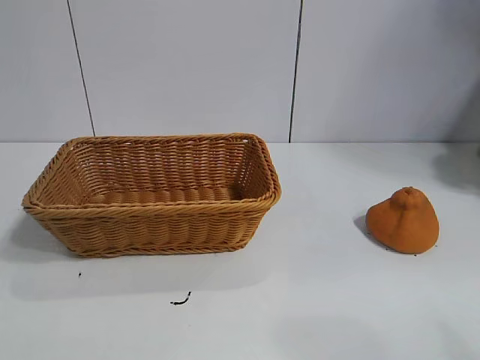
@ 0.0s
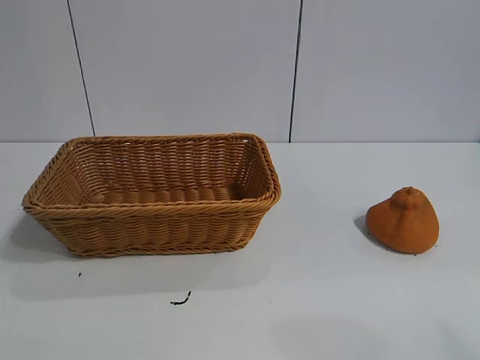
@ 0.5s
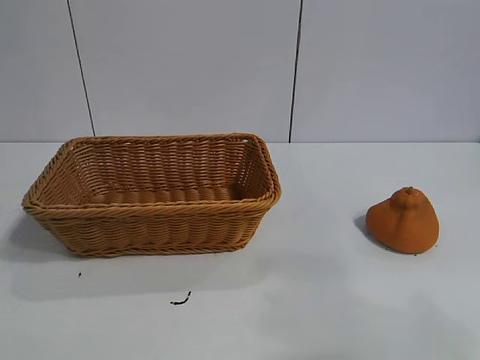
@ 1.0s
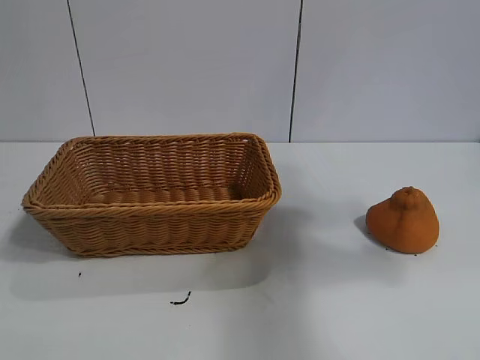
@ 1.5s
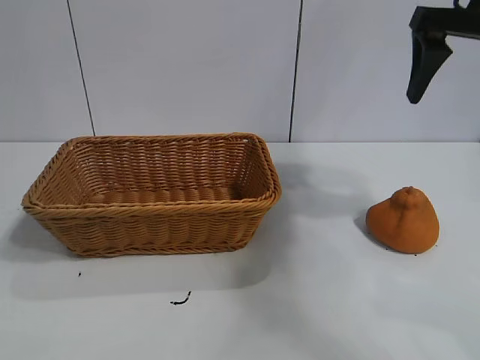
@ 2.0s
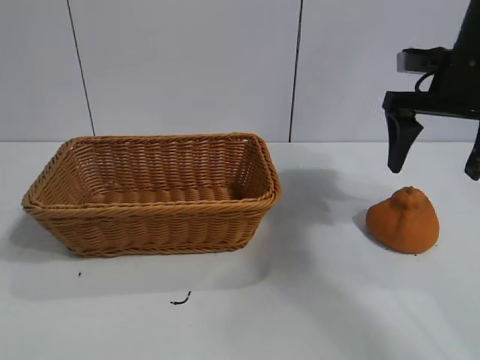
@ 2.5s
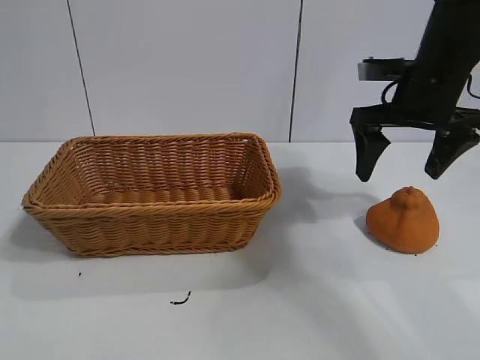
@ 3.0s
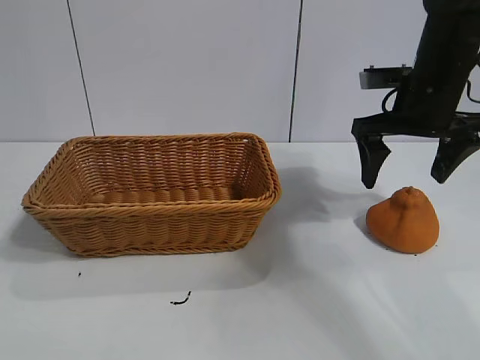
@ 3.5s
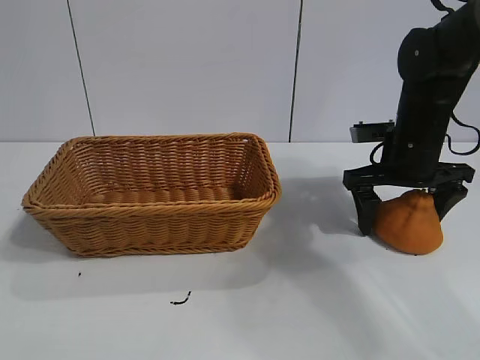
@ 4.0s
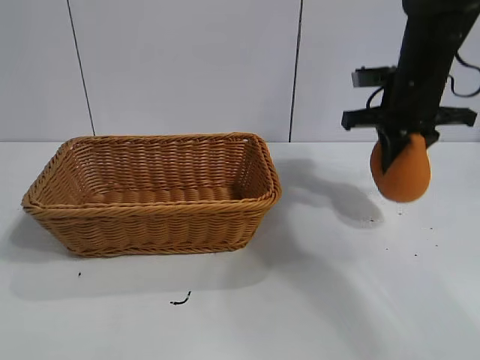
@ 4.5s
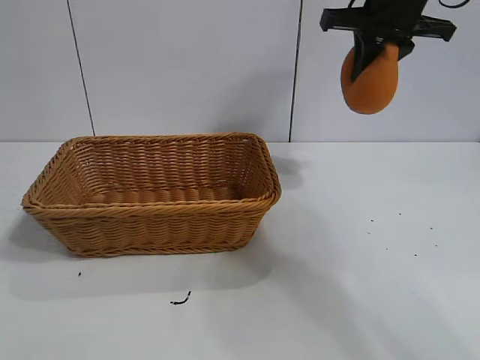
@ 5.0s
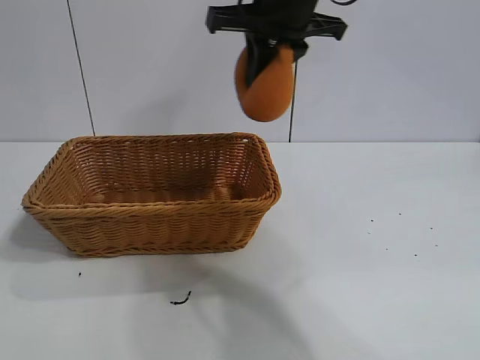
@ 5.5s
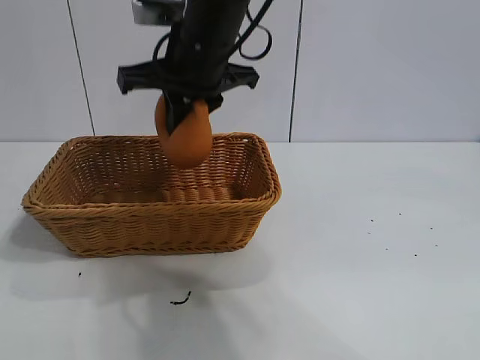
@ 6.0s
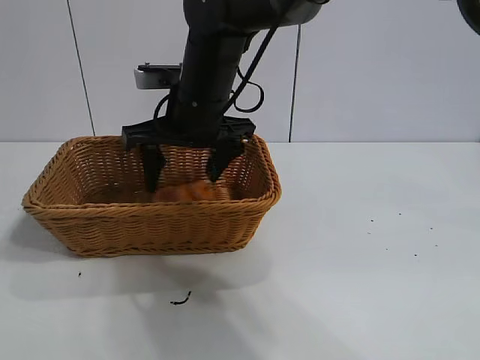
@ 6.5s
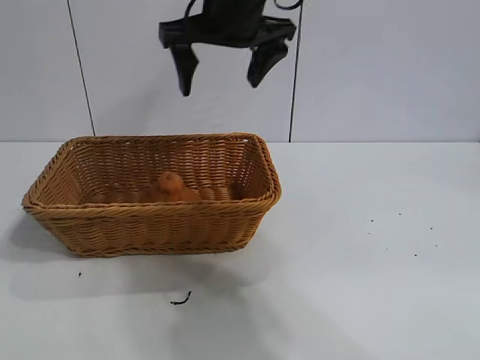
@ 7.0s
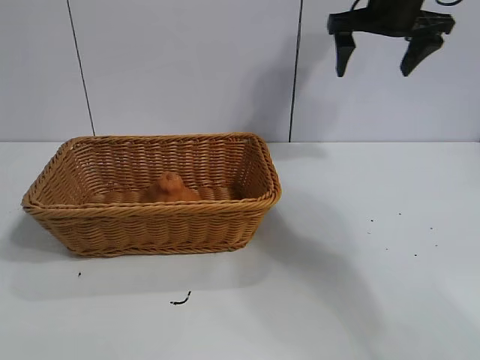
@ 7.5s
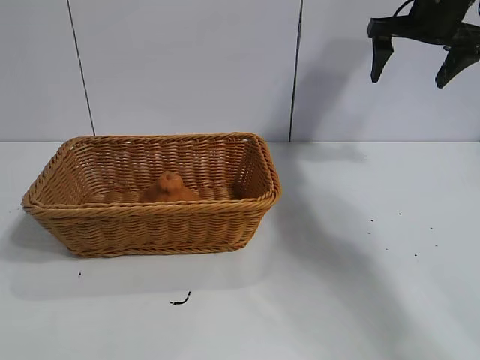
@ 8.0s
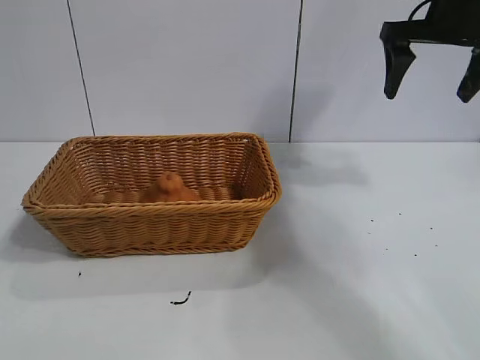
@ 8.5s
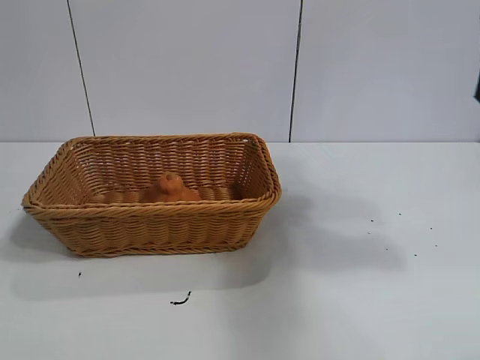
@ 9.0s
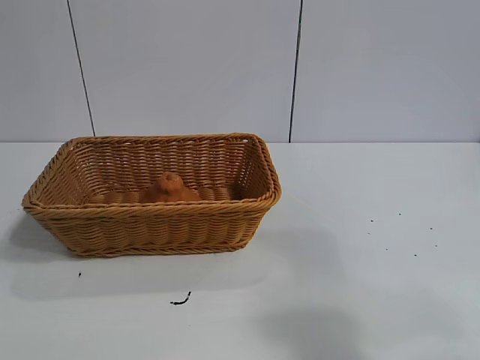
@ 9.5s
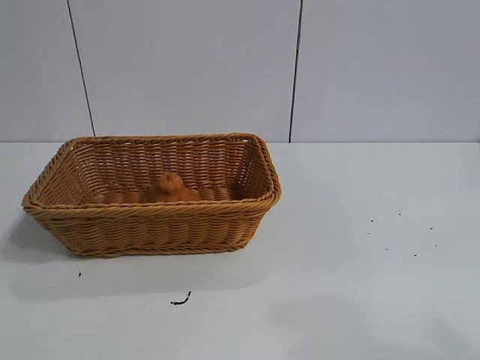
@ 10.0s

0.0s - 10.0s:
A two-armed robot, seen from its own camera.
Task of the whole recording: pick up the orange and put it into the basket.
Step, 1.0s - 4.0s: Grasp the orange with right gripper.
Step, 4.5s - 6.5s: Place the orange in the basket with right gripper.

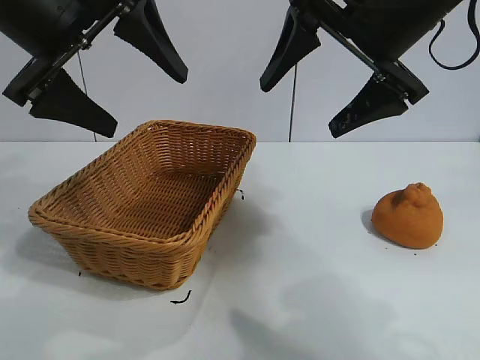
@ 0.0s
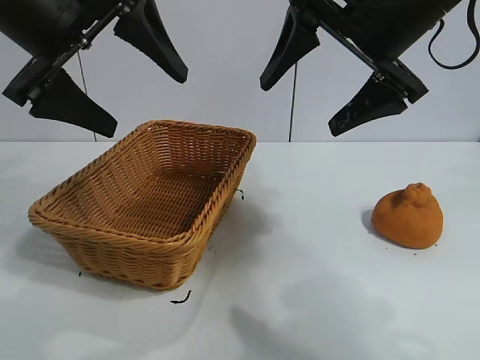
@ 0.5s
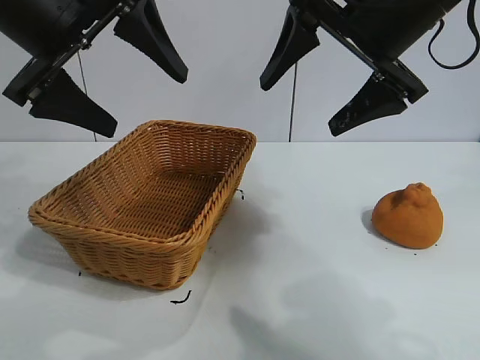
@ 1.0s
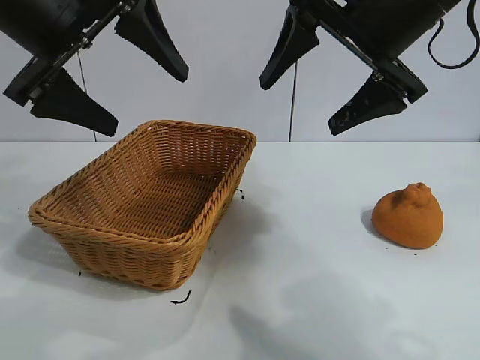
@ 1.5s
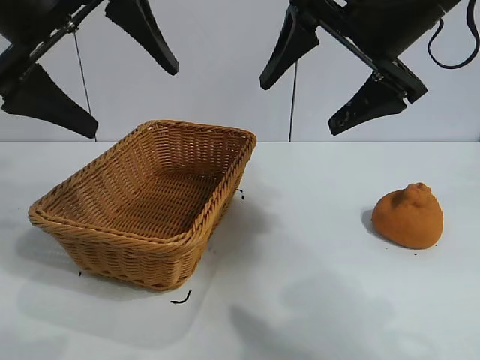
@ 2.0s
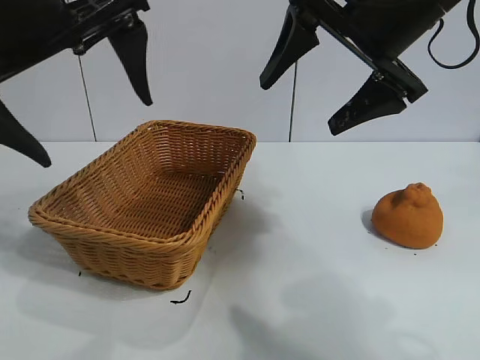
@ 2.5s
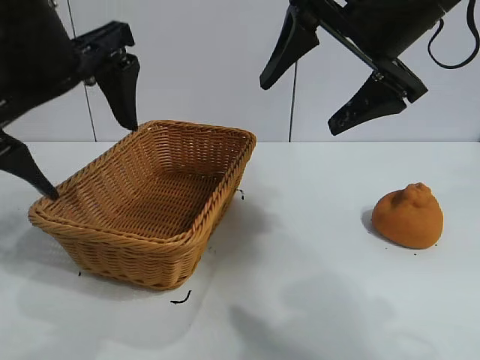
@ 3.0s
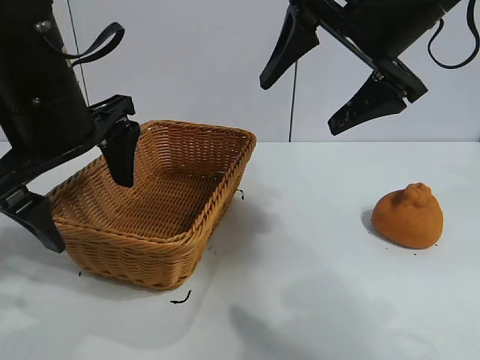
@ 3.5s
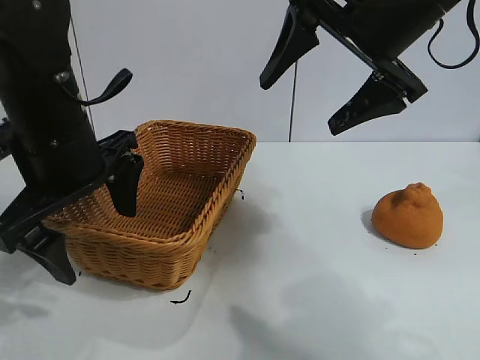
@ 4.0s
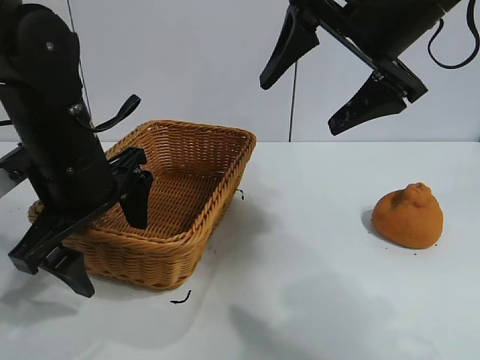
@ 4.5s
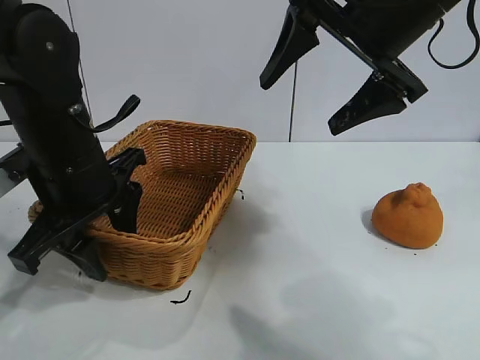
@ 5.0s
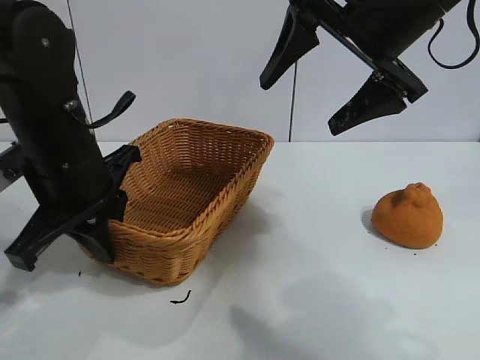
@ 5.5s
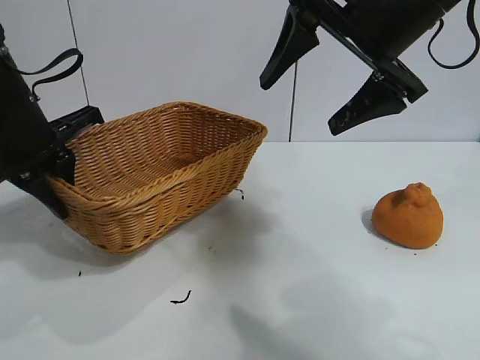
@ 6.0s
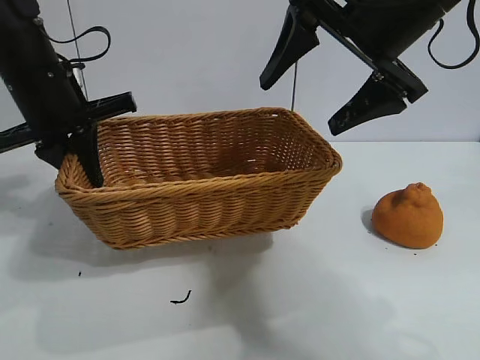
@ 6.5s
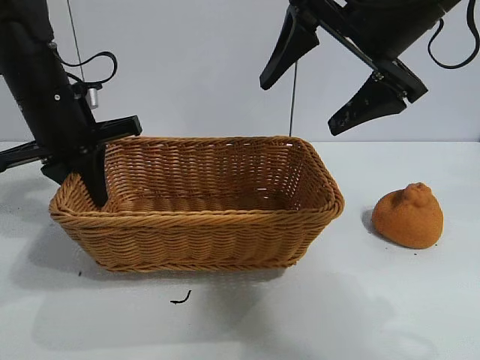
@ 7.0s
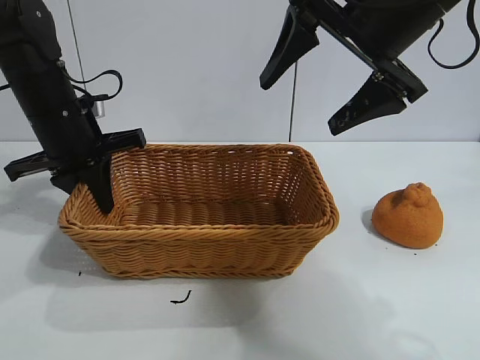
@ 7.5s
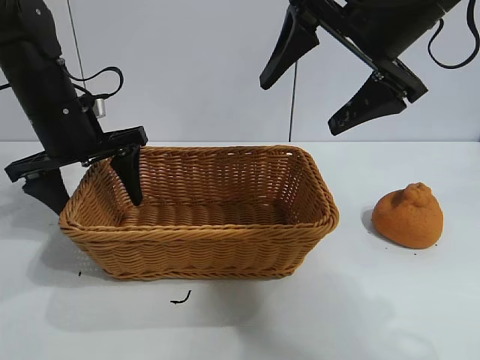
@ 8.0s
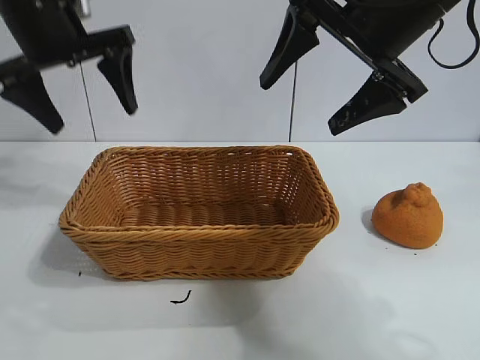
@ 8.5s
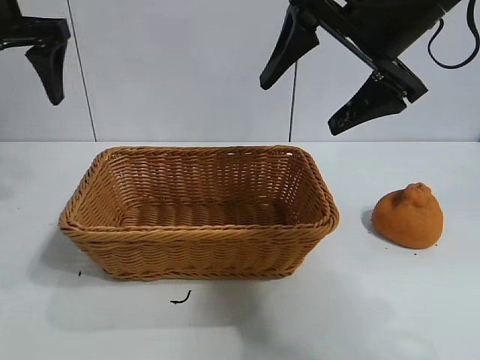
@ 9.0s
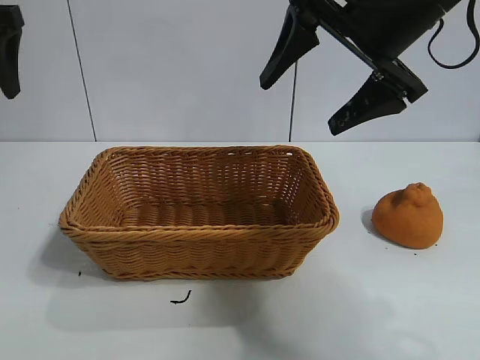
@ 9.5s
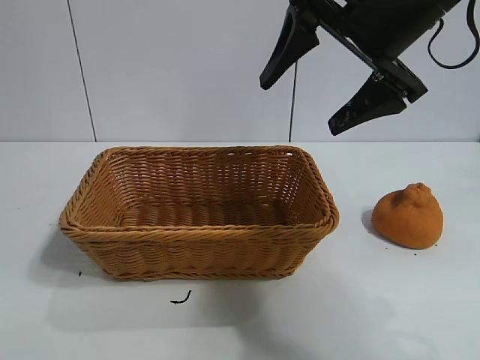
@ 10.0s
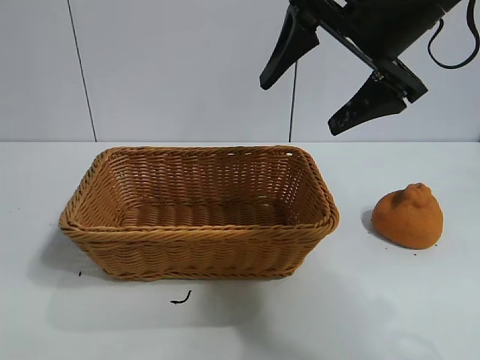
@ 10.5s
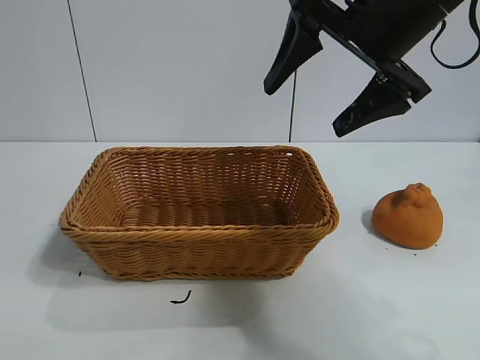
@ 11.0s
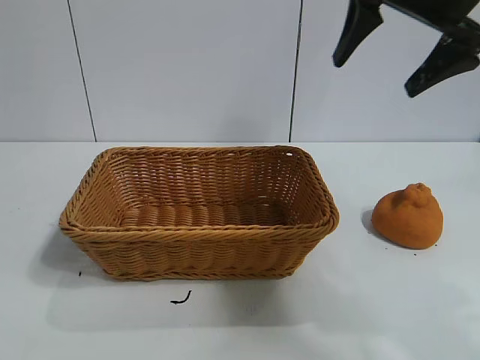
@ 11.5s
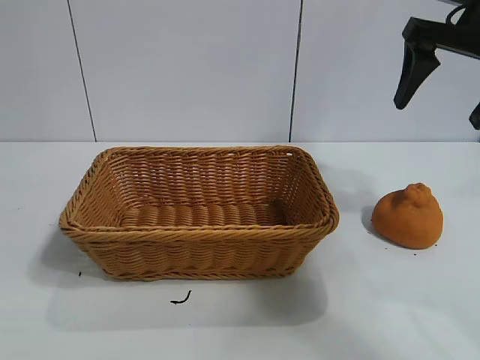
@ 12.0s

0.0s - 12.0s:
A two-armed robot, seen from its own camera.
Task of the whole recording: pick up the orange and put it into the basket.
Step, 1.5s - 5.0s: Grasp the basket with left gripper.
Step, 5.5s - 8.0s: Place the basket in the center of view with left gripper.

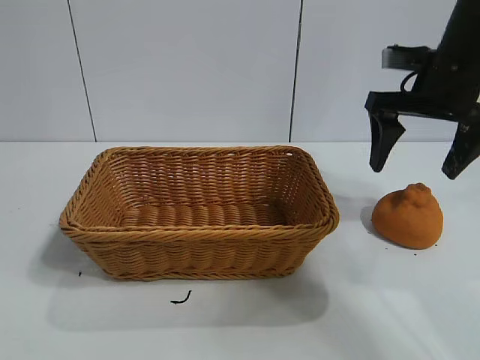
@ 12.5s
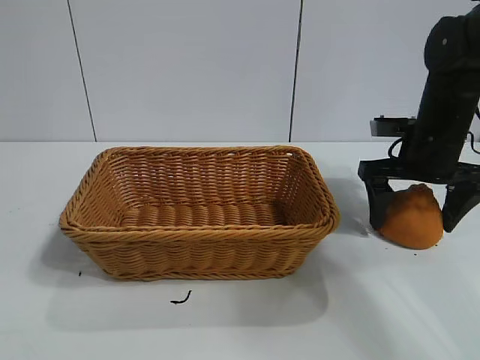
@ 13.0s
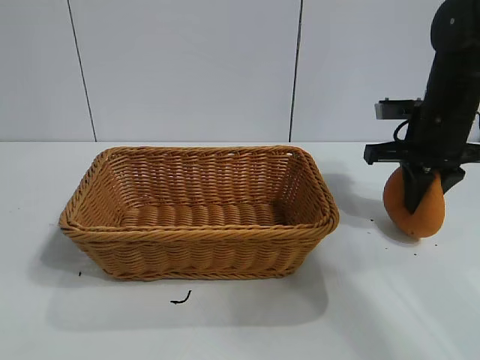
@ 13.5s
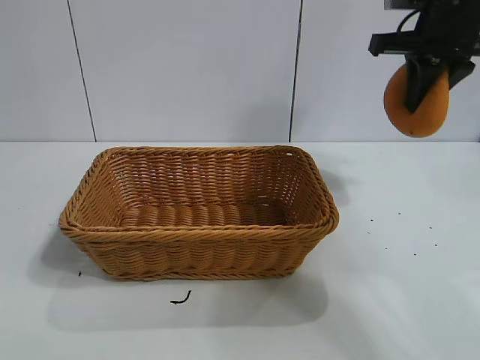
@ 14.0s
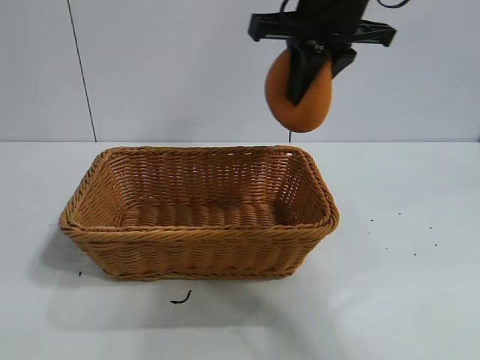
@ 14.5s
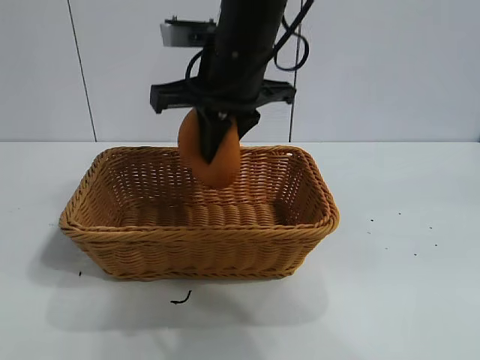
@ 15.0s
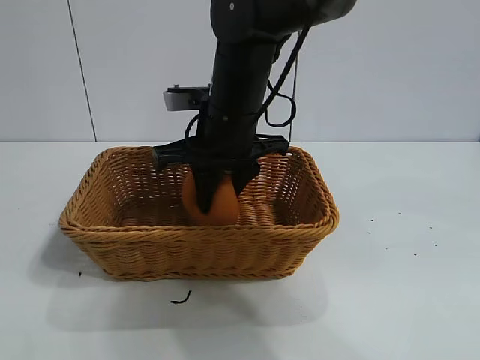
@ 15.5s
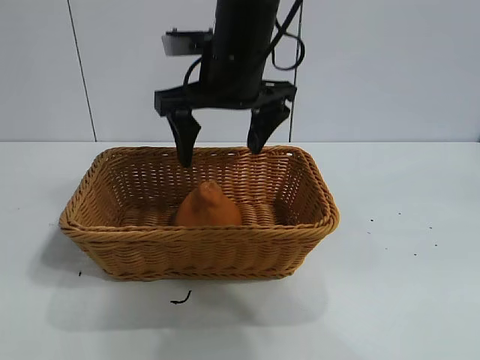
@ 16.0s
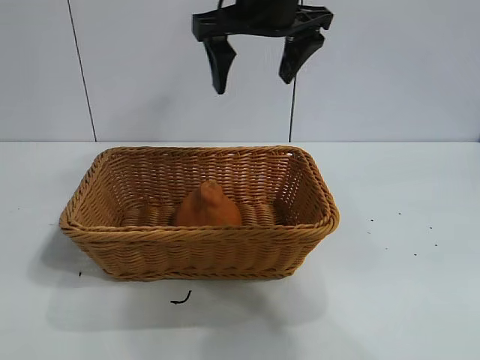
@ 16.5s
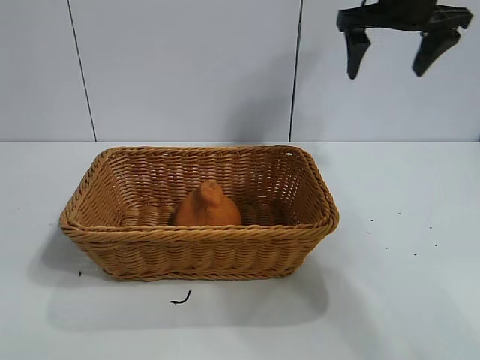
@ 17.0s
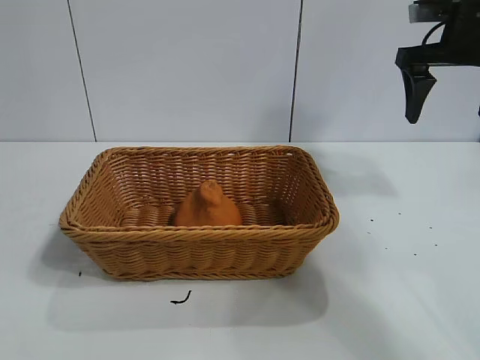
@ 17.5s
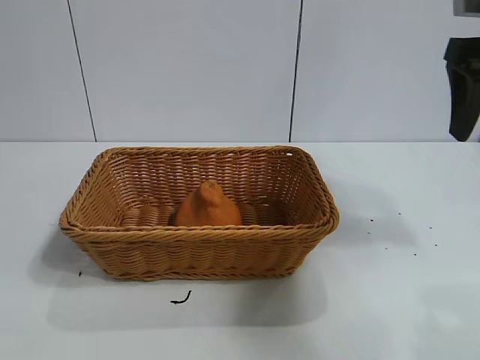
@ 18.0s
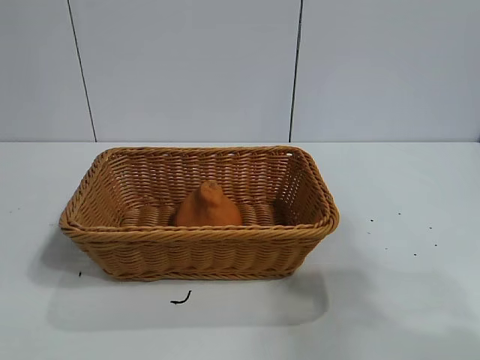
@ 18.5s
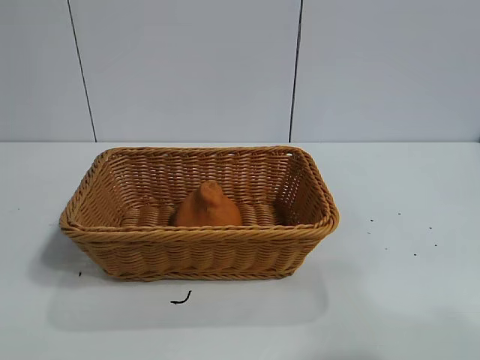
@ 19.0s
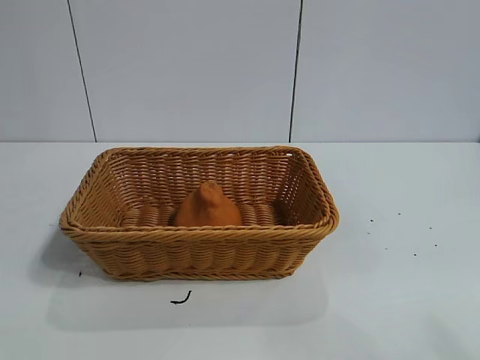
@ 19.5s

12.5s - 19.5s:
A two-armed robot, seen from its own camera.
Task of the whole recording: pick up the orange and put it into the basket.
Step, 14.0s - 15.5s: Place the orange in the basket with right gripper.
